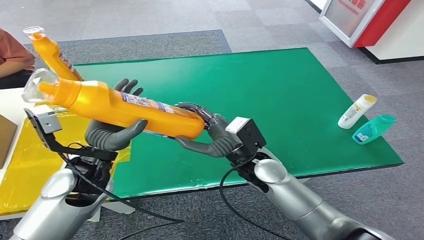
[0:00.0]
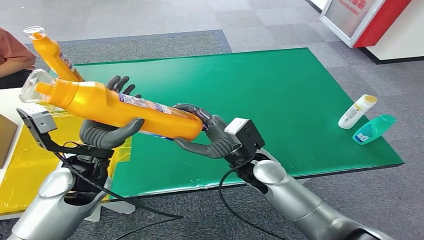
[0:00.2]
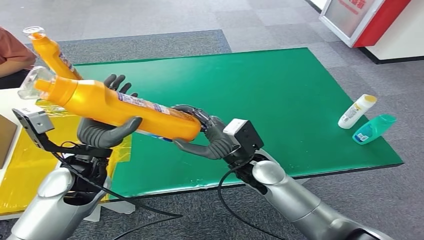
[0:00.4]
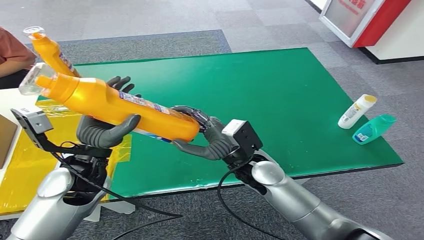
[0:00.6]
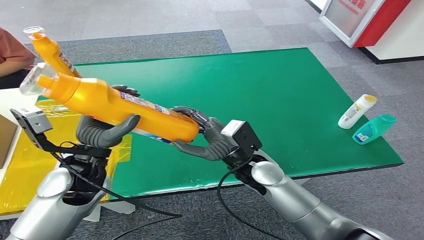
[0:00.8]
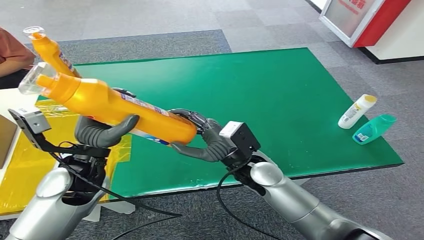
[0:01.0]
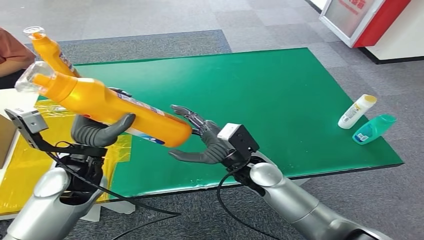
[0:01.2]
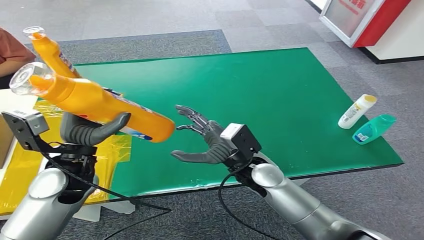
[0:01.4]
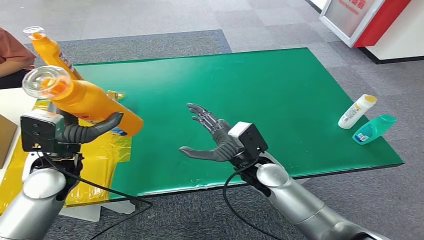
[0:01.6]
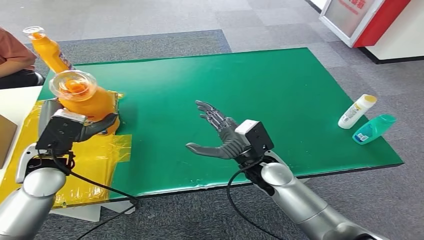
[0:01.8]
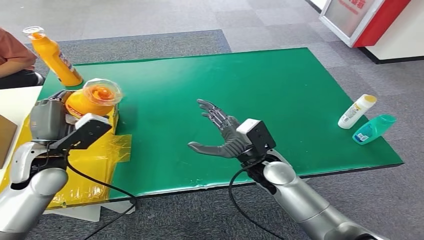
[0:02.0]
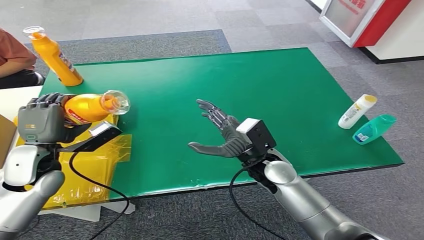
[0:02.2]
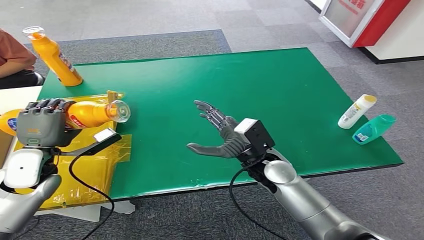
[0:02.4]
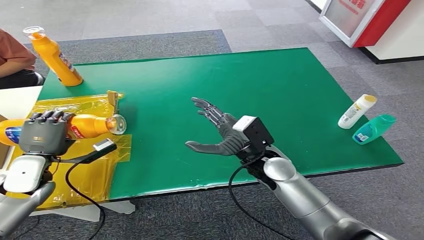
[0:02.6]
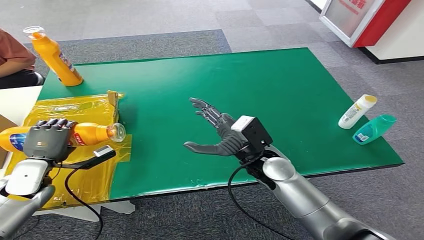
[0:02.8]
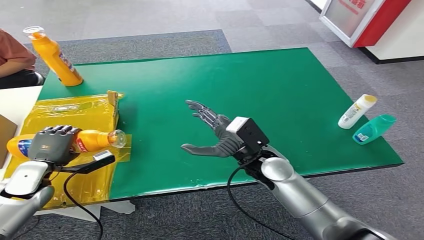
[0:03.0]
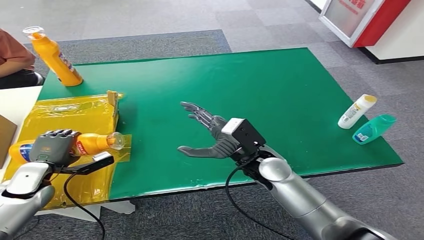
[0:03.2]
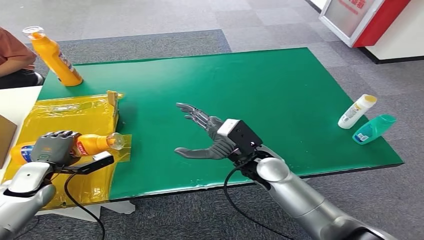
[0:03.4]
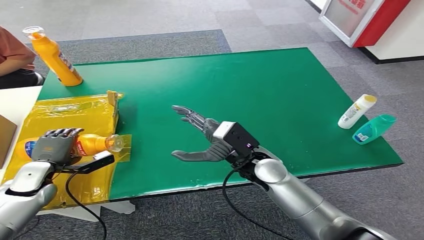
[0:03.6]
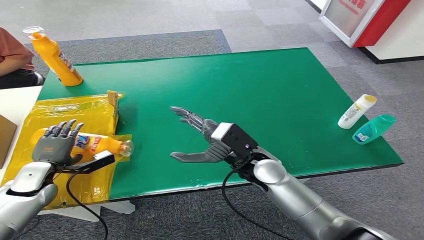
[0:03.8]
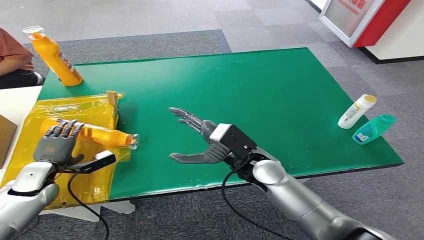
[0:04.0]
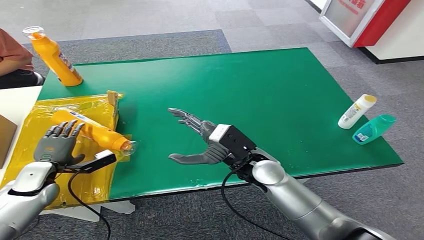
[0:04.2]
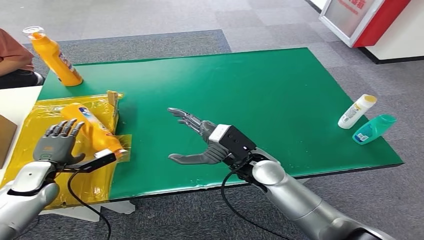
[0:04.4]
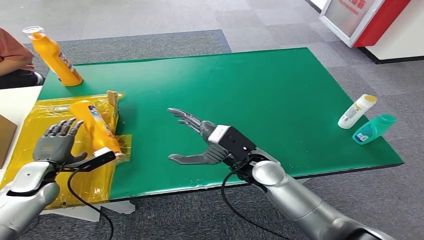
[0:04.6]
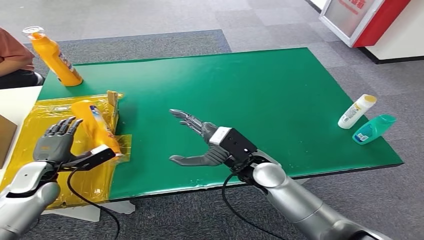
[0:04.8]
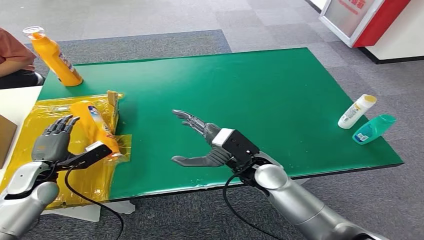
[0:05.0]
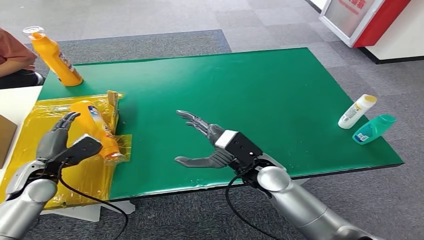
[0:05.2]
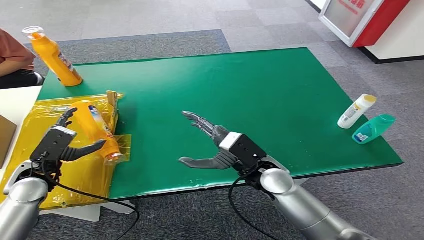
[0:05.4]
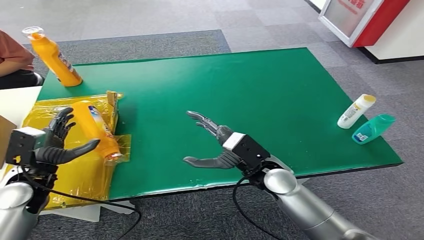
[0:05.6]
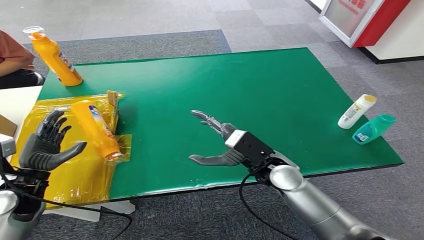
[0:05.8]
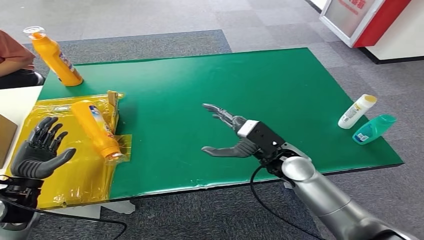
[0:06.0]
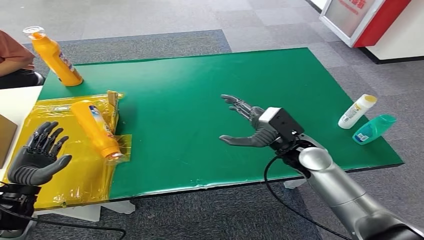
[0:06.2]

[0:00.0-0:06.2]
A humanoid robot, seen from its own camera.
Step, 0:00.0 to 0:06.2: Turn the bottle to the front side.
0:01.6 to 0:03.2: The left hand shifts approximately 20 cm downward and to the left.
0:03.2 to 0:04.6: There are only small adjustments of the hands.
0:04.6 to 0:06.2: The right hand moves to the right, about 10 cm, while the left hand is displaced backward by approximately 10 cm.
